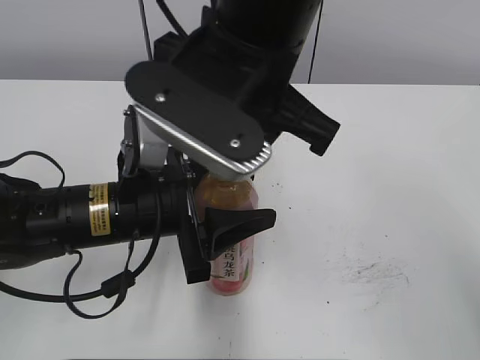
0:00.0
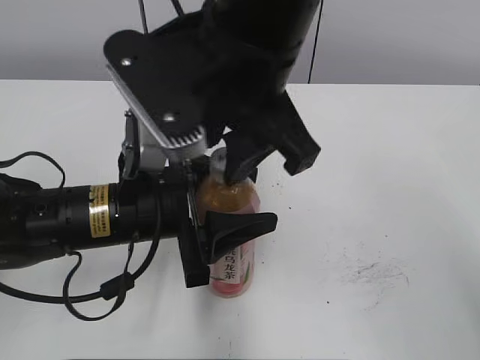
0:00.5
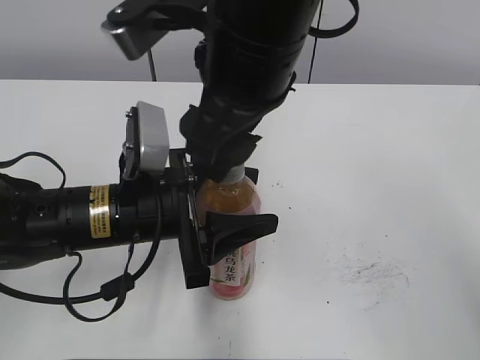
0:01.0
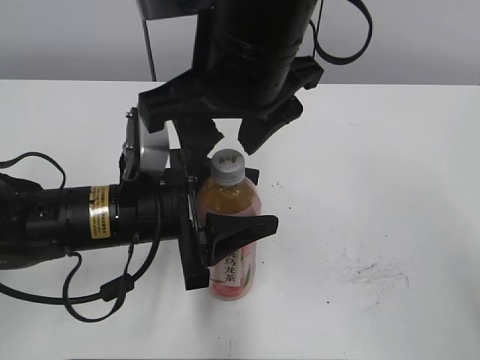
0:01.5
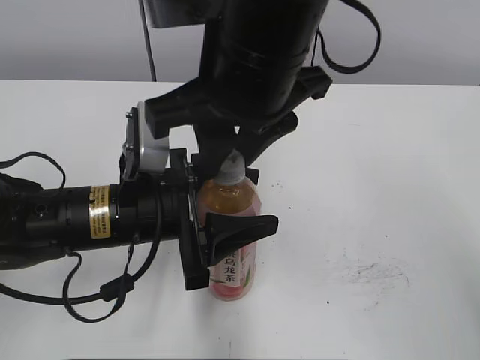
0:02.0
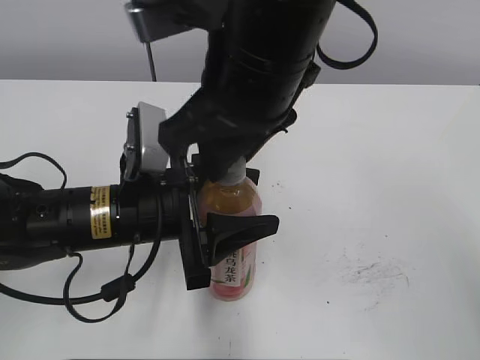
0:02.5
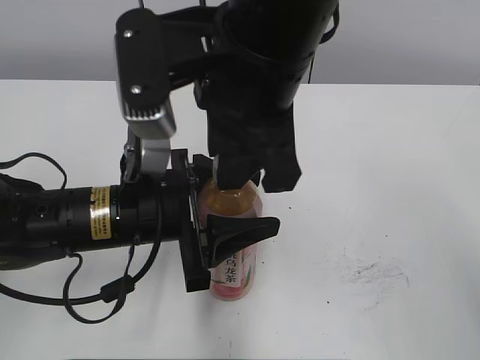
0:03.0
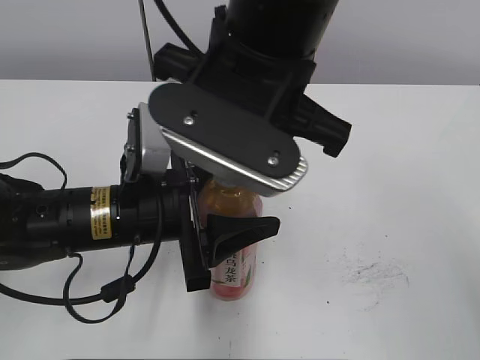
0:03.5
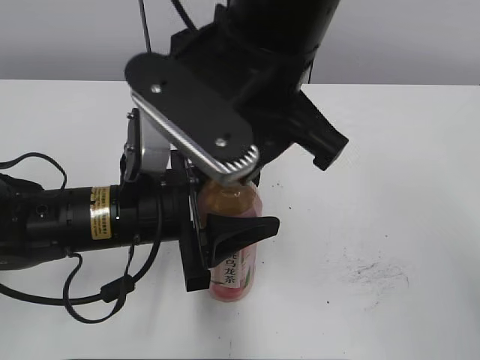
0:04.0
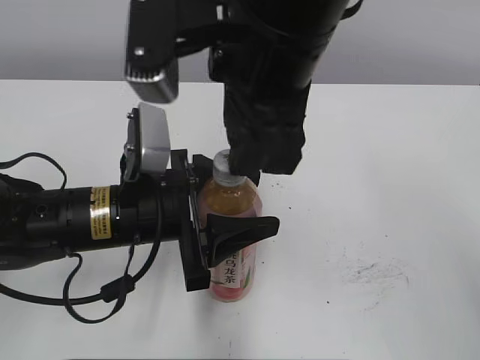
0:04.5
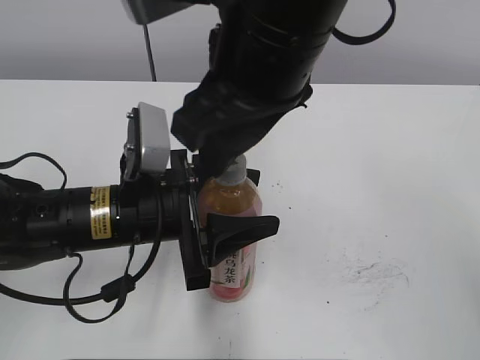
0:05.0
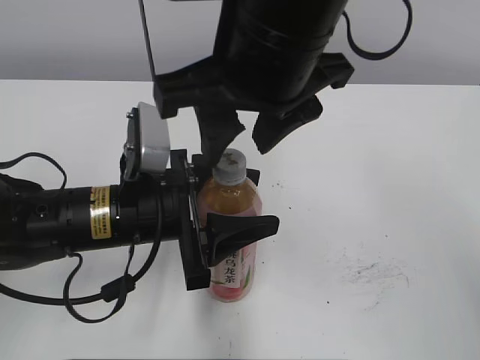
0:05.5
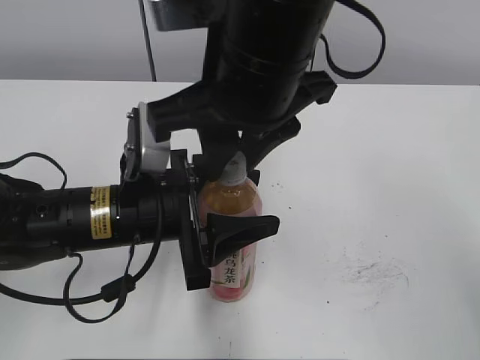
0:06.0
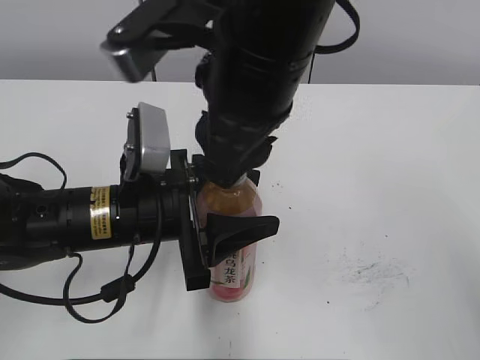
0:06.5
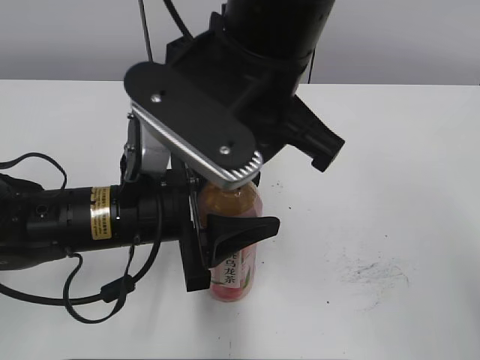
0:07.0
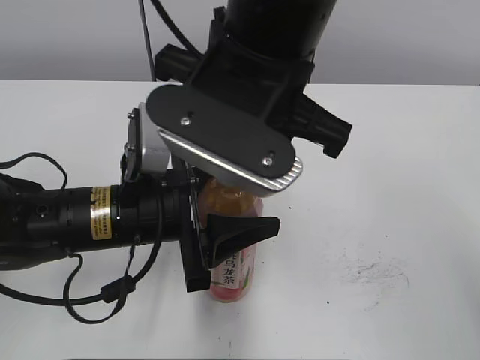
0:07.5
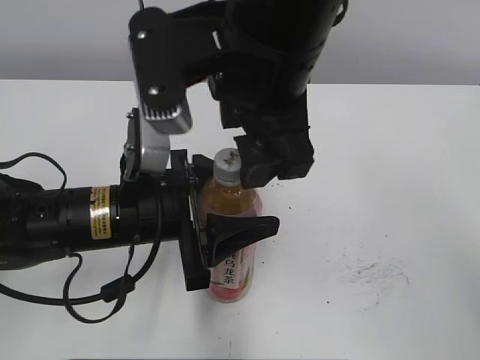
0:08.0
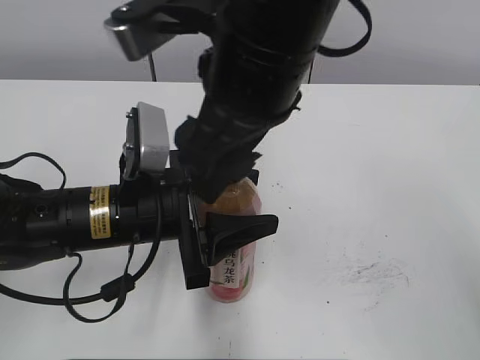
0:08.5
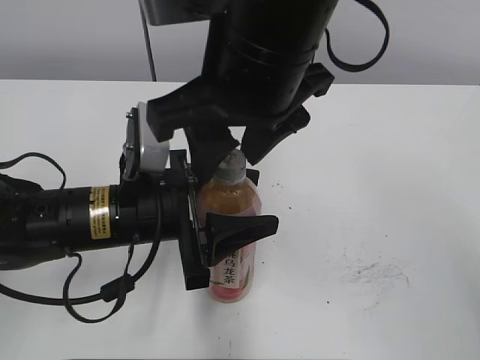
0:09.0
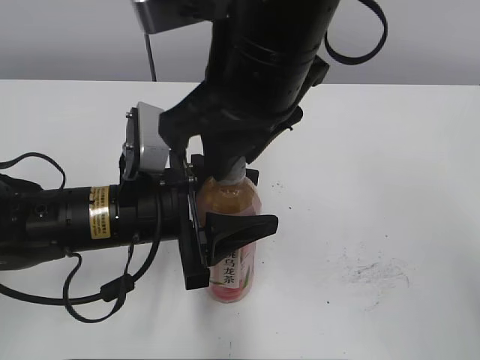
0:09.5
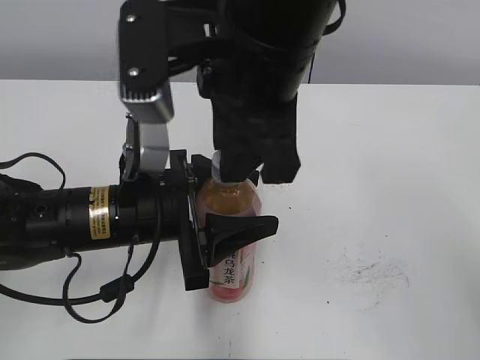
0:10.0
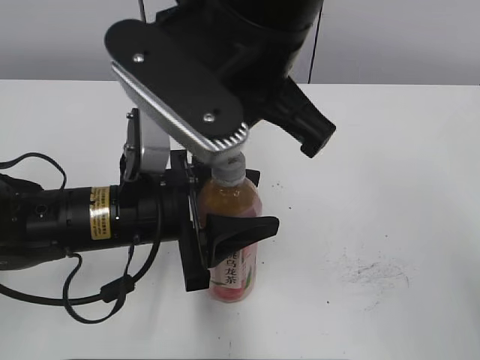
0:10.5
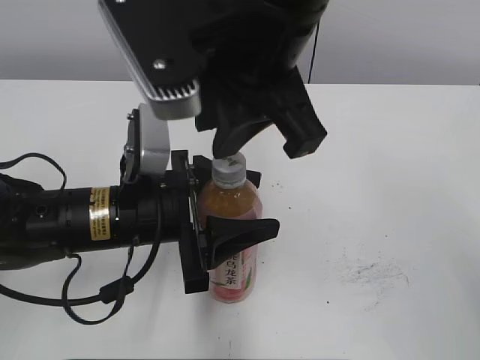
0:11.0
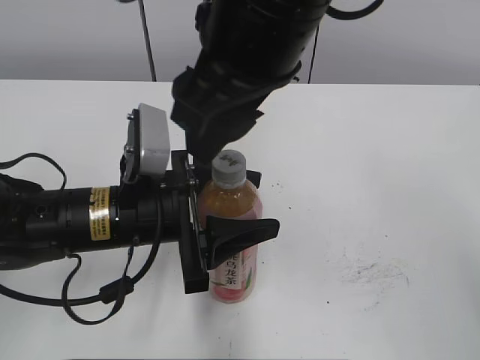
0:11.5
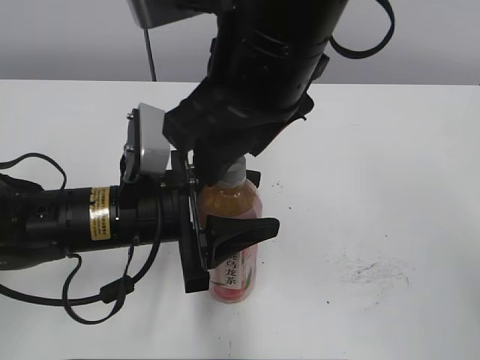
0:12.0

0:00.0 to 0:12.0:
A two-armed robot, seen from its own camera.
0:00.0 to 0:02.0: The right gripper opens and closes again.
0:06.0 to 0:08.0: The right gripper opens its fingers.
0:08.0 to 0:10.0: The right gripper closes its fingers.
0:10.0 to 0:12.0: The right gripper opens up.

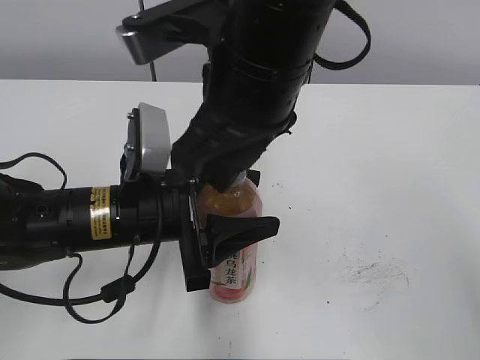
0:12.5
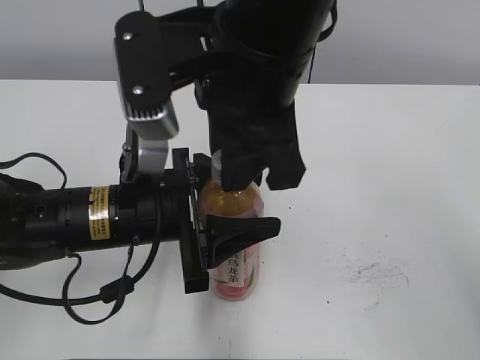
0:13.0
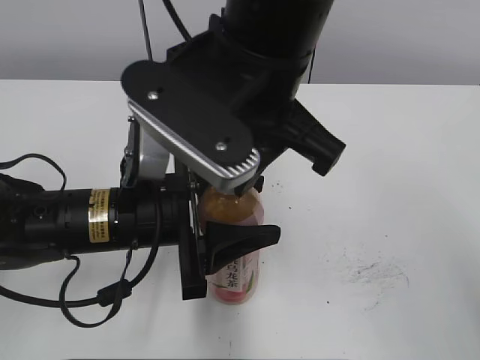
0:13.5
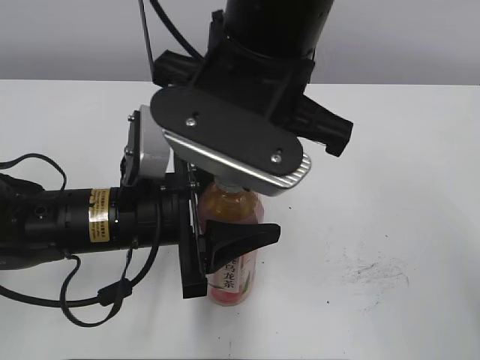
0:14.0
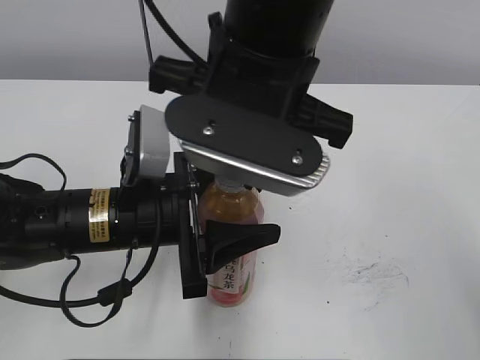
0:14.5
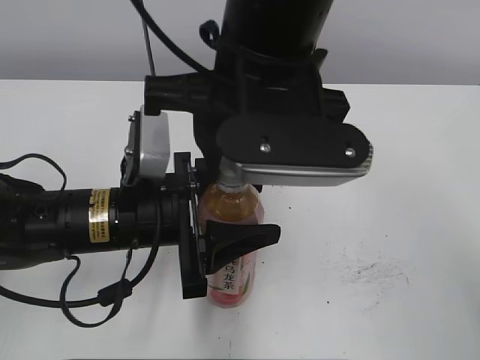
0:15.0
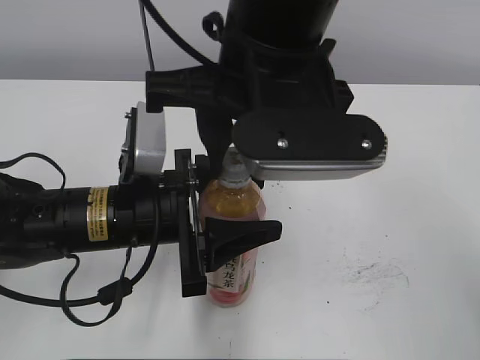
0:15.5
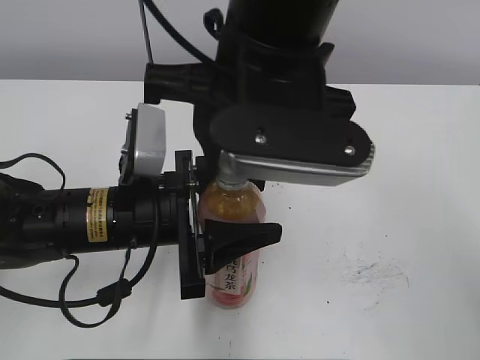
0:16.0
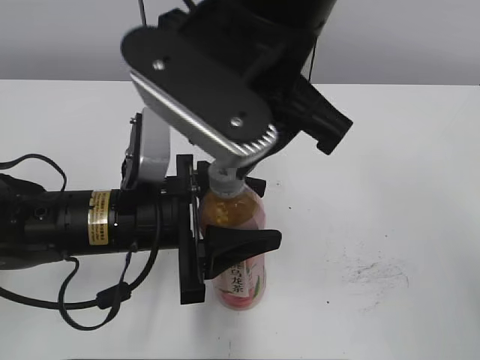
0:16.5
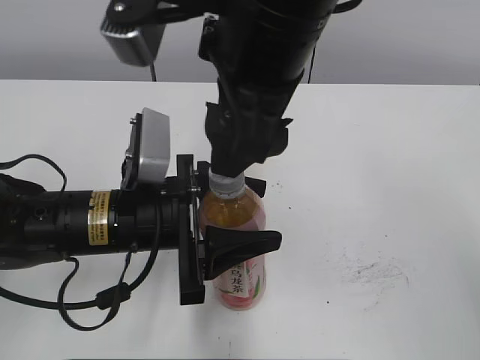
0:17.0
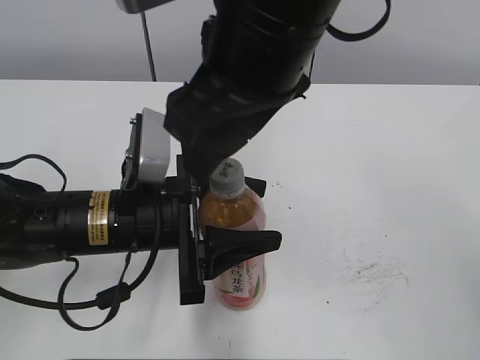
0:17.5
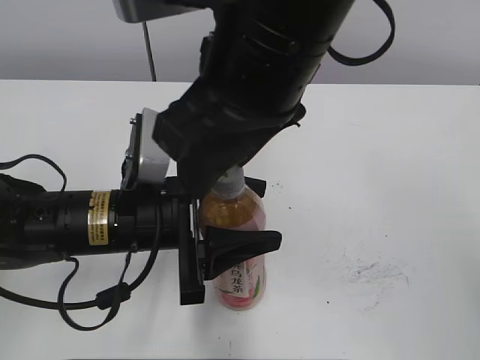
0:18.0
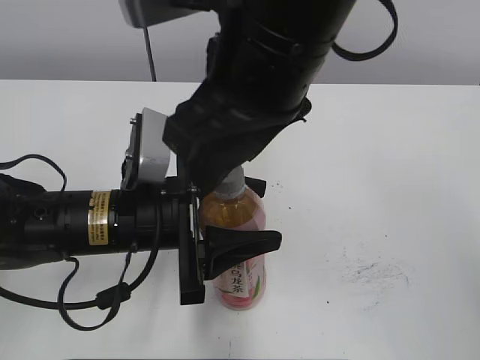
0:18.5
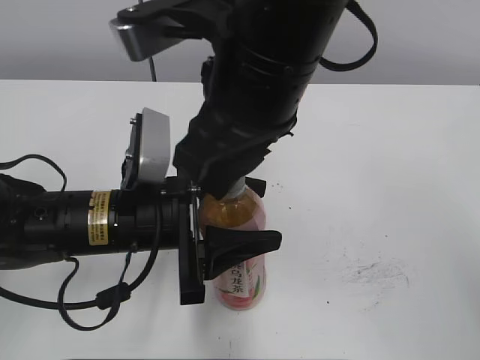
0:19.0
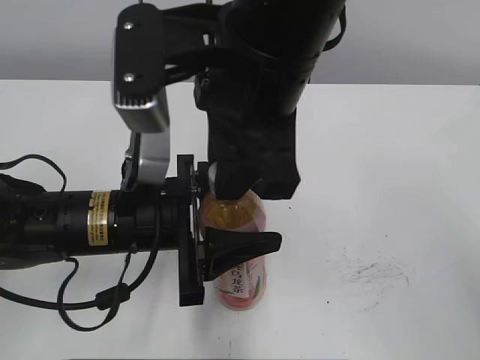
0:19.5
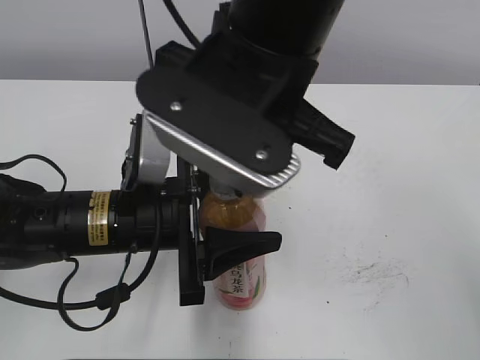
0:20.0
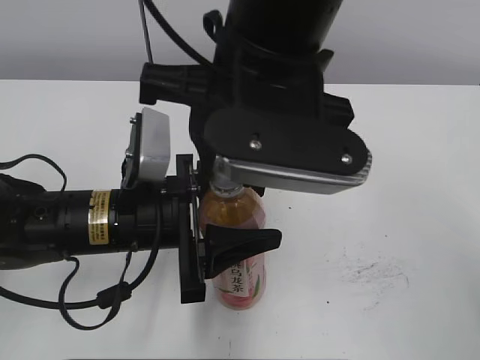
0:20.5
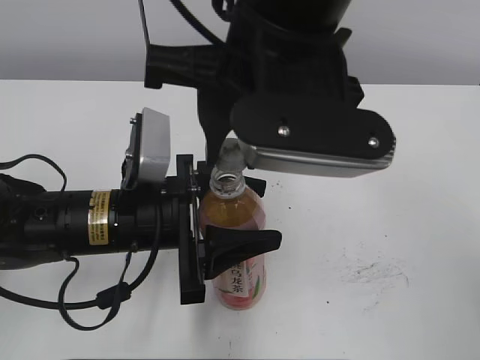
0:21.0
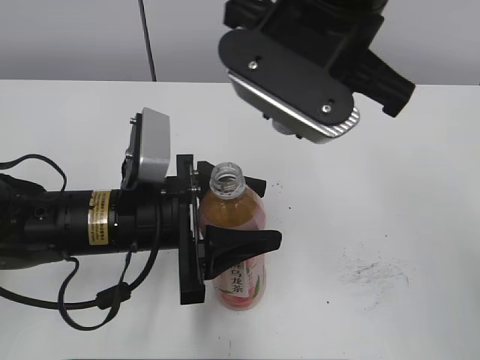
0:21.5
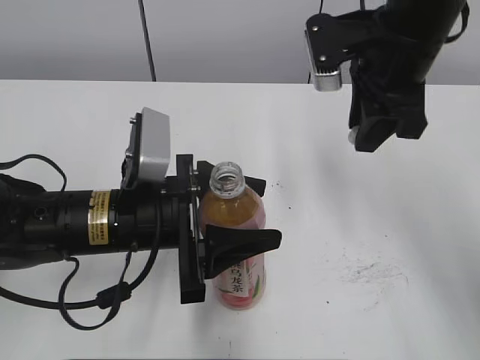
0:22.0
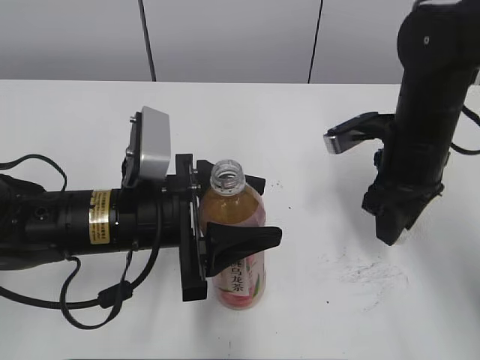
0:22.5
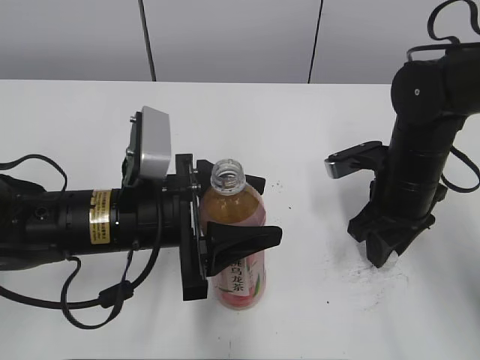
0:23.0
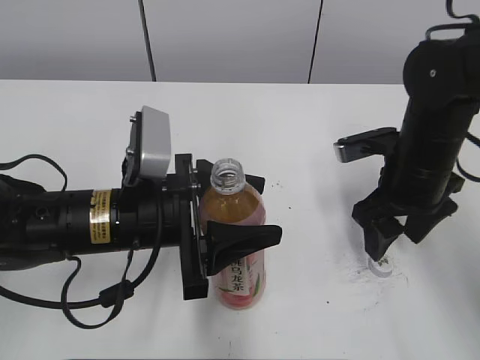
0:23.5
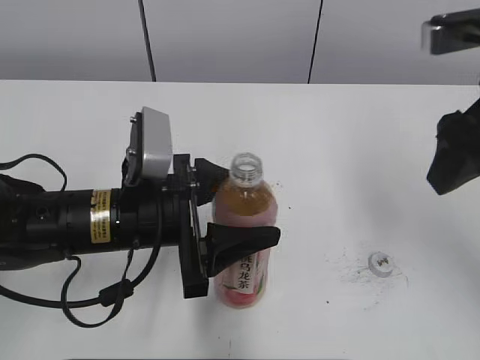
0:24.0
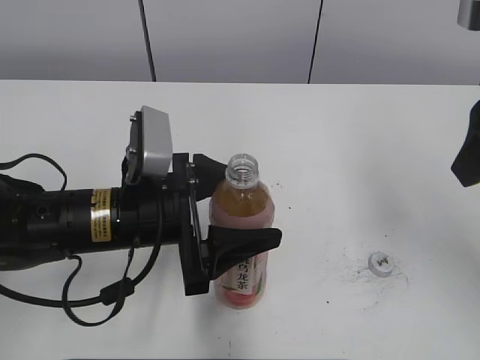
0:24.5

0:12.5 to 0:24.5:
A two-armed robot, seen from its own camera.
Step, 0:21.0 to 0:23.0: Place the bottle cap on the right.
0:14.5 to 0:16.5: The right gripper opens.
0:16.5 to 0:18.5: The right gripper opens and closes again.
0:18.5 to 0:20.5: The right gripper closes up.
0:20.5 to 0:22.5: The right gripper shifts about 25 cm to the right, downward and forward.
0:22.5 to 0:24.5: The right gripper is displaced upward and backward by approximately 20 cm, and opens its fingers.

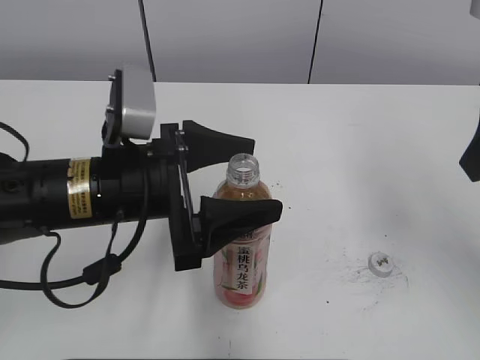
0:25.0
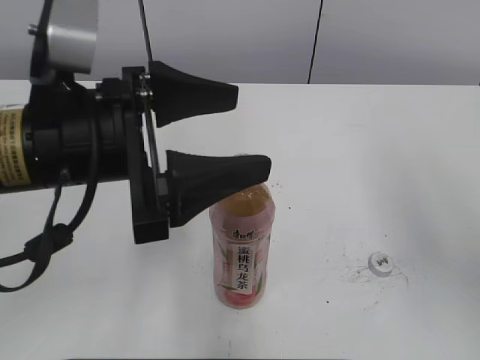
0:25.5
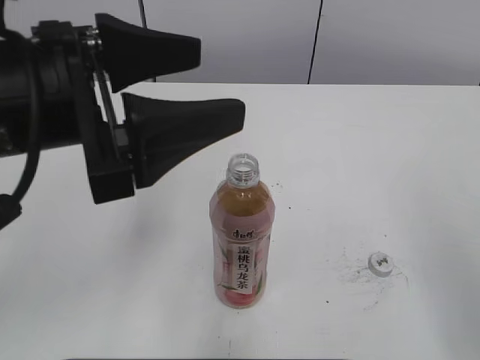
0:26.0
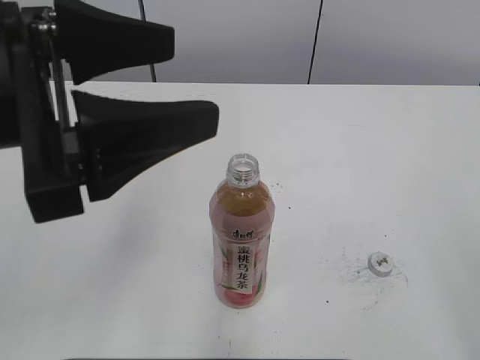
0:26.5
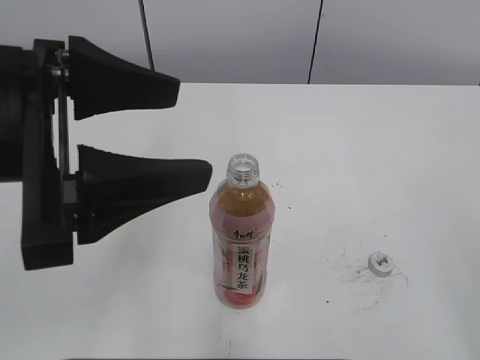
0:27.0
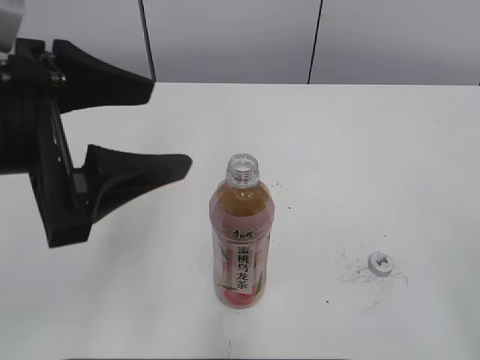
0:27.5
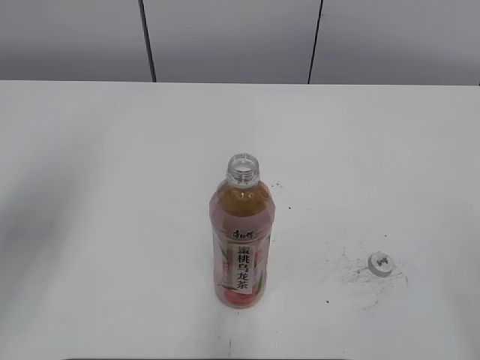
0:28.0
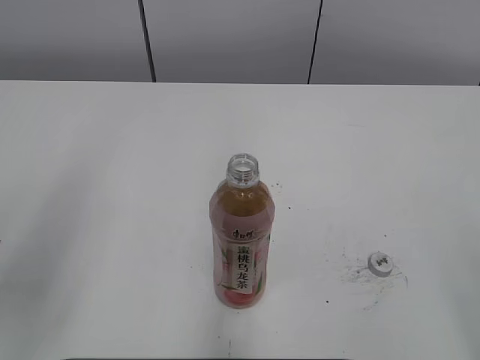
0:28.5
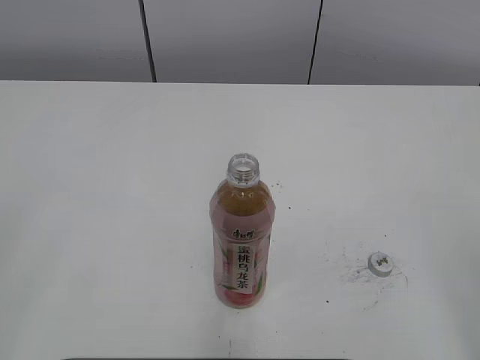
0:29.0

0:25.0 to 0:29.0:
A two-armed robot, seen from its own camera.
0:25.0 to 0:27.0: The left gripper goes roughly 15 cm upward and backward. The right gripper goes about 20 cm backward.
0:27.0 to 0:29.0: The left gripper shifts roughly 20 cm backward and to the left, and closes.
